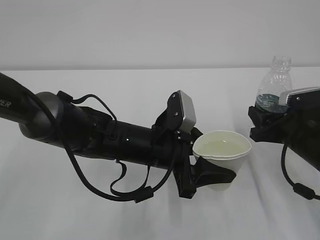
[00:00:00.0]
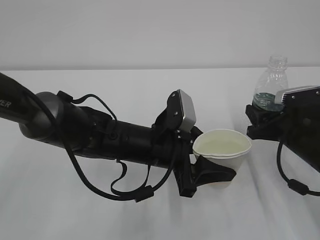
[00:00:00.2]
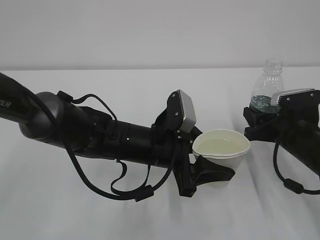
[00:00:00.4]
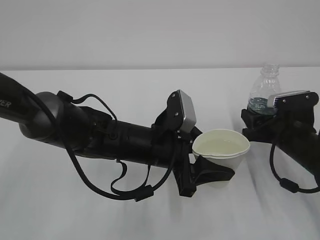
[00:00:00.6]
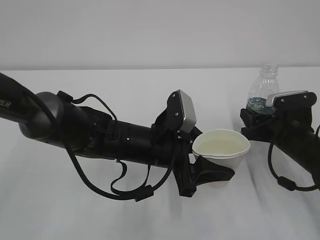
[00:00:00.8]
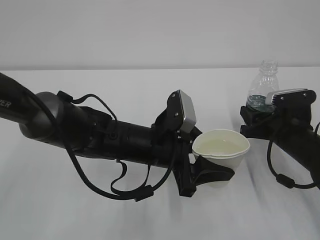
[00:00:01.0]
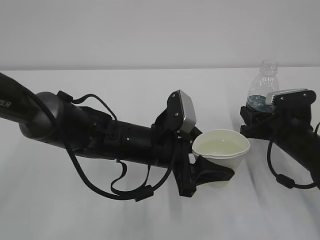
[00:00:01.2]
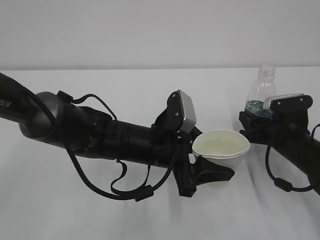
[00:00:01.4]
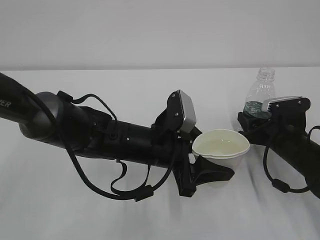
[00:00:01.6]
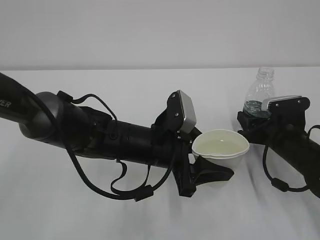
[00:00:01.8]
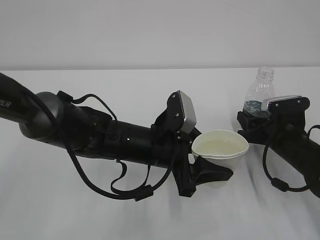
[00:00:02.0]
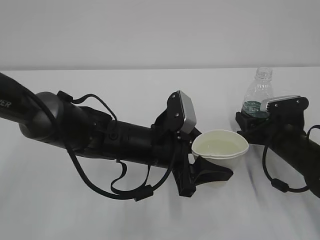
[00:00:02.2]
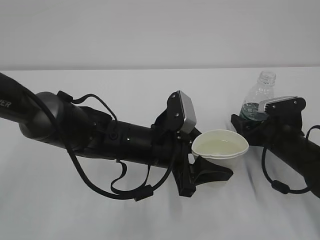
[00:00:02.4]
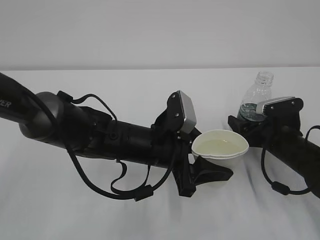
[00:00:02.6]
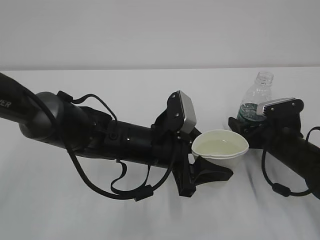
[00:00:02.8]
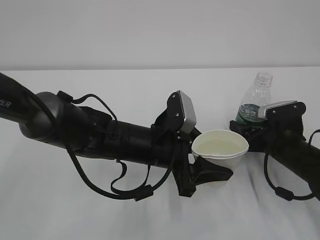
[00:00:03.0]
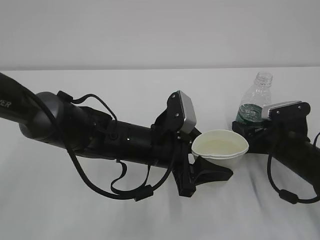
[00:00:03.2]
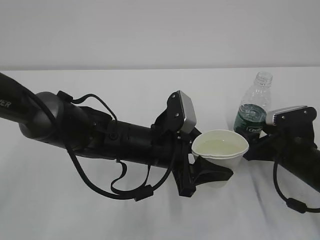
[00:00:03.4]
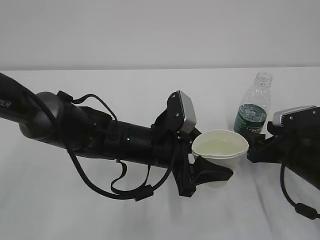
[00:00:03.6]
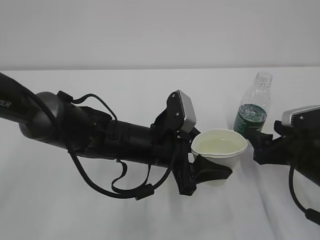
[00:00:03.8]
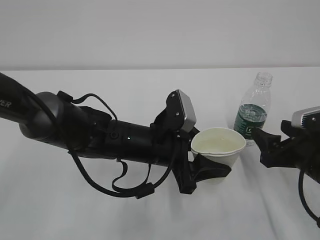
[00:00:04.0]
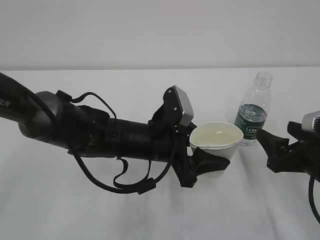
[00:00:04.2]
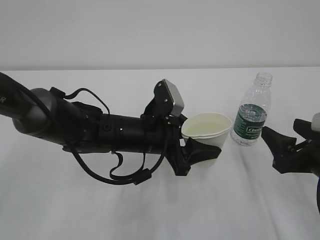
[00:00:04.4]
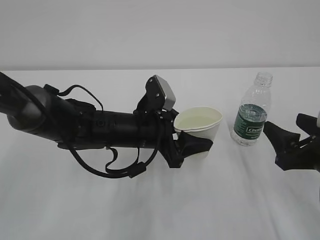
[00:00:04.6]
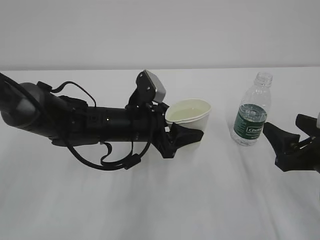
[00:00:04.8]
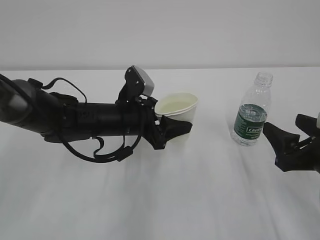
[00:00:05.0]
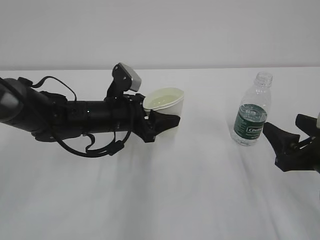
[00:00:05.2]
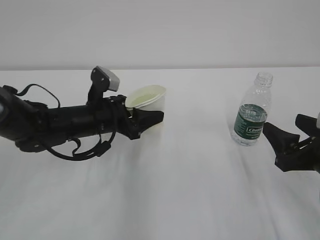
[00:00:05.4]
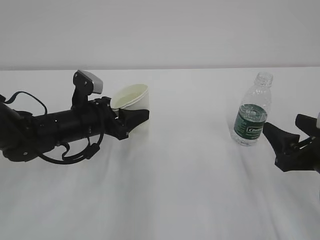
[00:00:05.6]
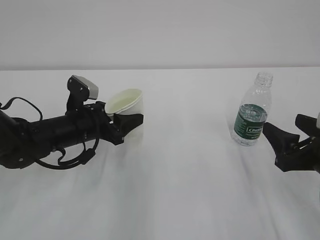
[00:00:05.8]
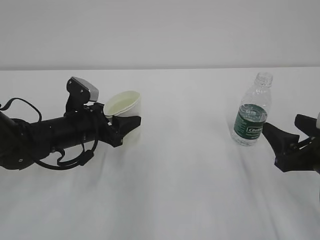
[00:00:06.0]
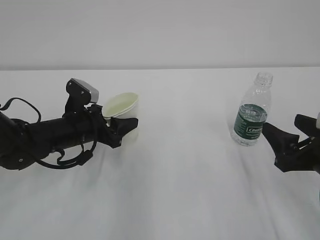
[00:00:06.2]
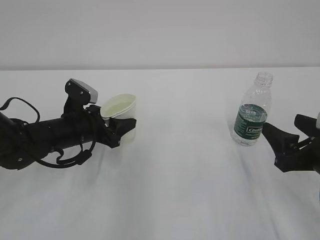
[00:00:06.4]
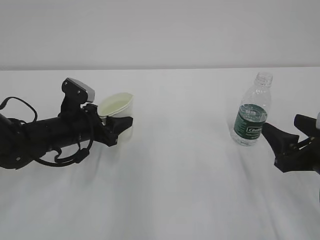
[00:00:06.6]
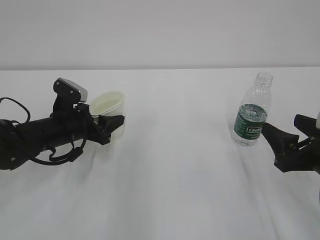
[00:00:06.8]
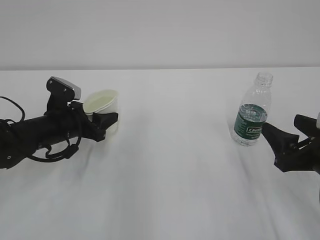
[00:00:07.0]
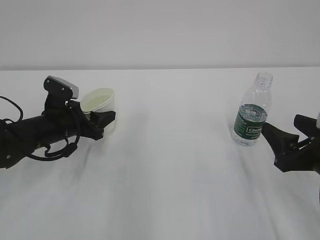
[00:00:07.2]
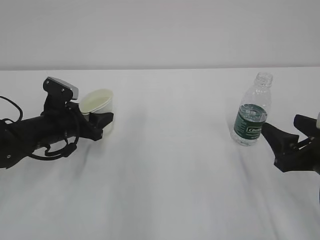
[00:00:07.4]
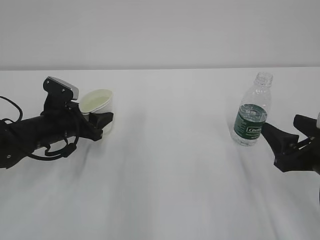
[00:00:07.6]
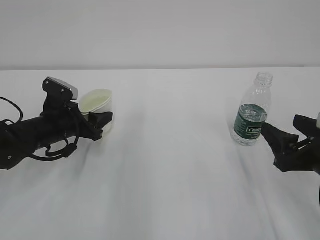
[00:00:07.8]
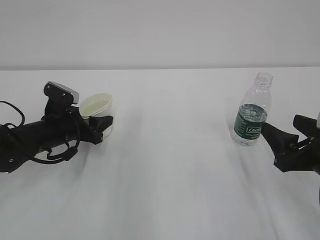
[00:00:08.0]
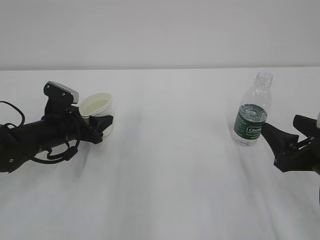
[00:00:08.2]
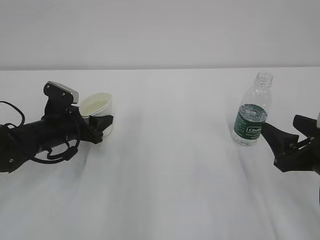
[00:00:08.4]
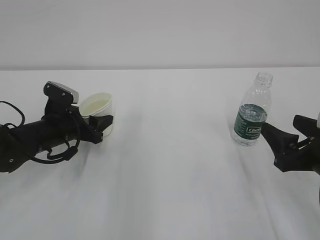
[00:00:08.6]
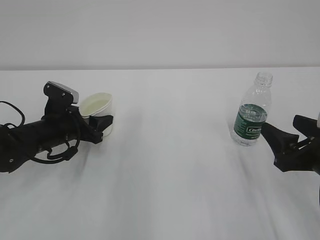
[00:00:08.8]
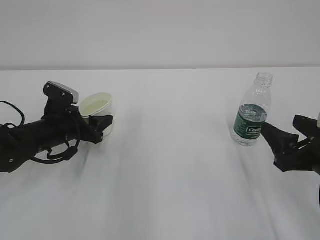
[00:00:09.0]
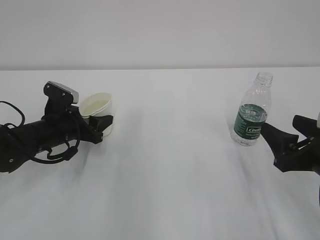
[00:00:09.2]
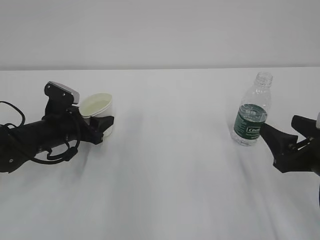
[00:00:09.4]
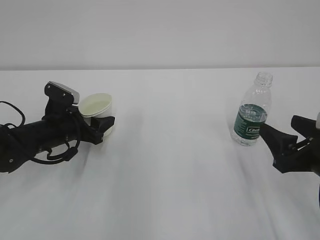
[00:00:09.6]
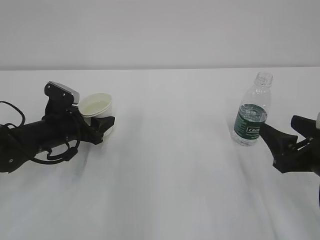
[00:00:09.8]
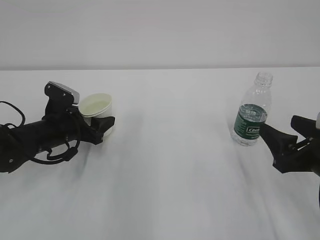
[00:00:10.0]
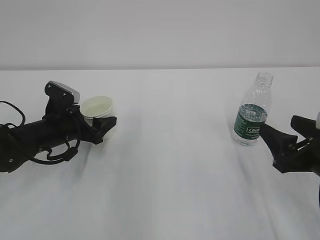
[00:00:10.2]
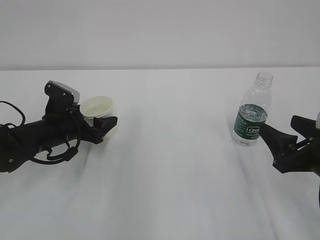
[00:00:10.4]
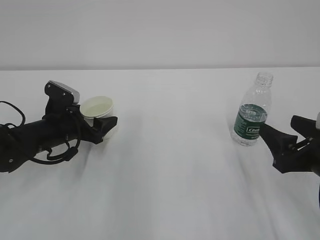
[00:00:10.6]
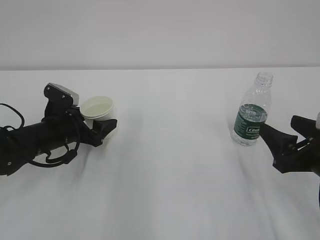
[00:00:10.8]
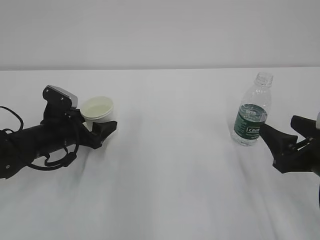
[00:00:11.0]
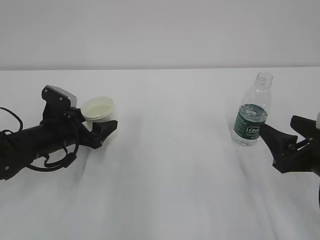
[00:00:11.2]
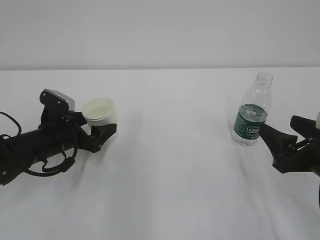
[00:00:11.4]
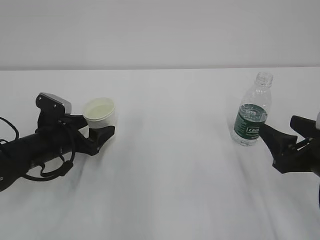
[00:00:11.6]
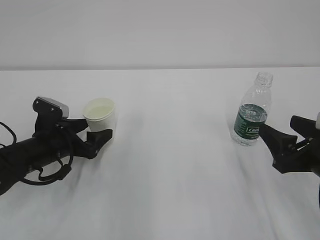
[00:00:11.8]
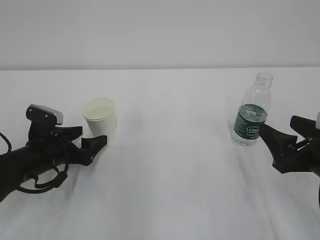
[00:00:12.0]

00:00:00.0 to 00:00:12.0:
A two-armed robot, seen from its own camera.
00:00:00.0 to 00:00:01.6: The right gripper shifts by about 5 cm.
00:00:01.6 to 00:00:03.0: The right gripper opens up.
00:00:03.0 to 00:00:04.4: The right gripper heads backward and upward, covering roughly 15 cm.
00:00:04.4 to 00:00:06.0: The left gripper goes some 15 cm to the left.
00:00:06.0 to 00:00:07.6: The left gripper ends up approximately 5 cm from where it was.
00:00:07.6 to 00:00:09.0: Both grippers stay about where they are.
00:00:09.0 to 00:00:10.4: The left gripper opens up.
00:00:10.4 to 00:00:12.0: The left gripper shifts roughly 5 cm backward.

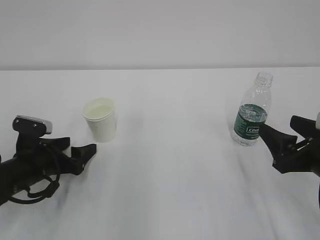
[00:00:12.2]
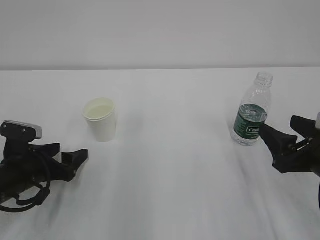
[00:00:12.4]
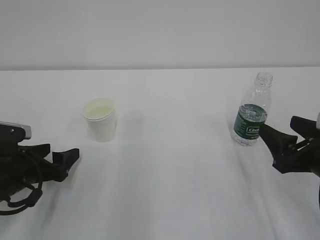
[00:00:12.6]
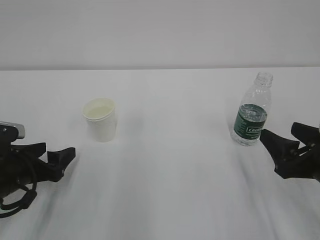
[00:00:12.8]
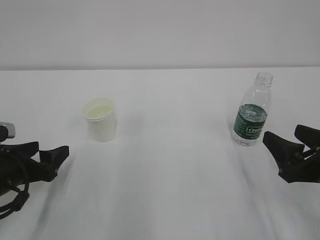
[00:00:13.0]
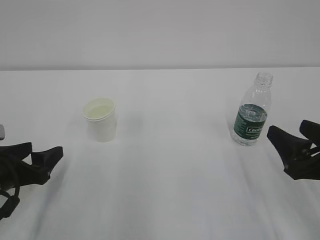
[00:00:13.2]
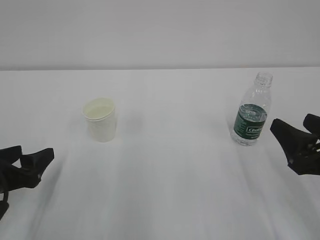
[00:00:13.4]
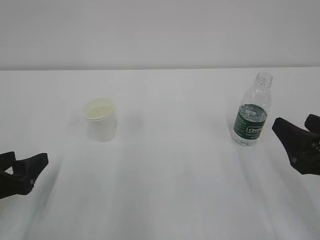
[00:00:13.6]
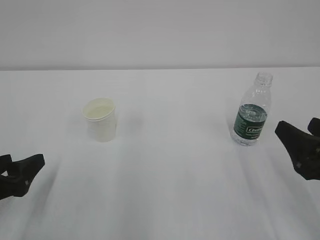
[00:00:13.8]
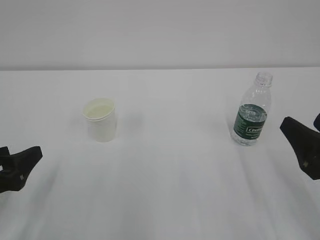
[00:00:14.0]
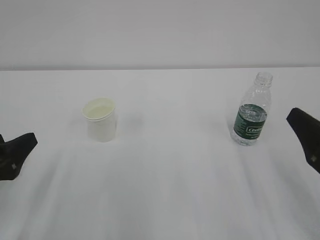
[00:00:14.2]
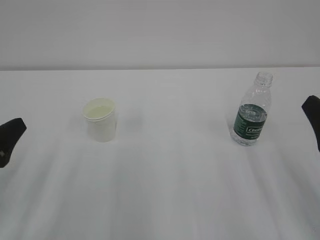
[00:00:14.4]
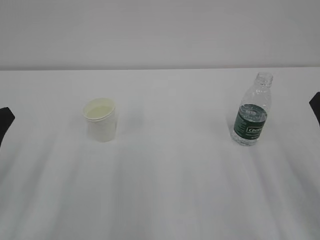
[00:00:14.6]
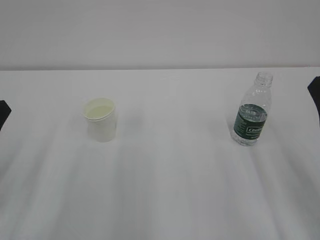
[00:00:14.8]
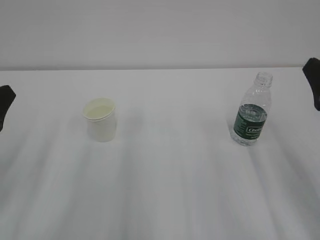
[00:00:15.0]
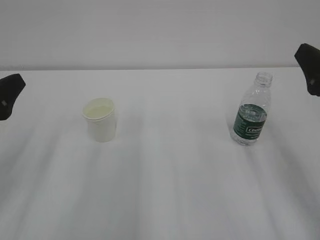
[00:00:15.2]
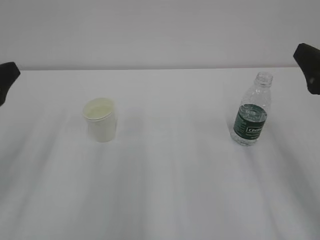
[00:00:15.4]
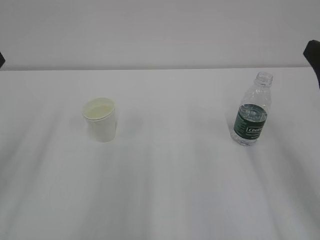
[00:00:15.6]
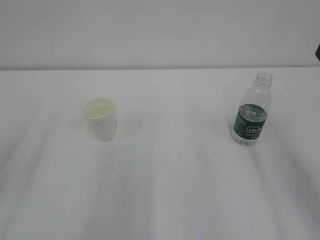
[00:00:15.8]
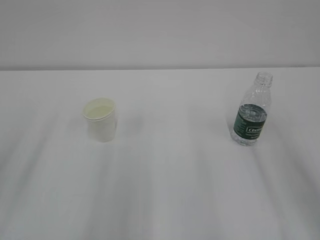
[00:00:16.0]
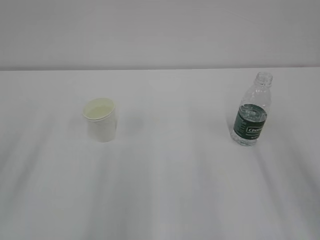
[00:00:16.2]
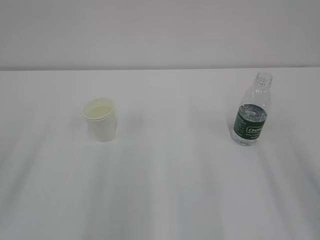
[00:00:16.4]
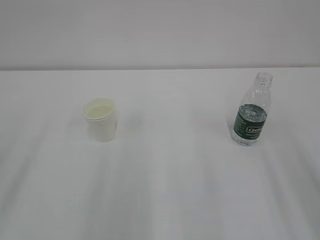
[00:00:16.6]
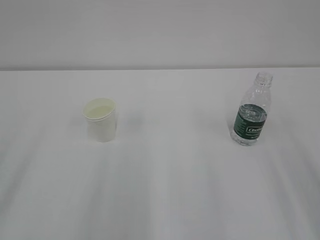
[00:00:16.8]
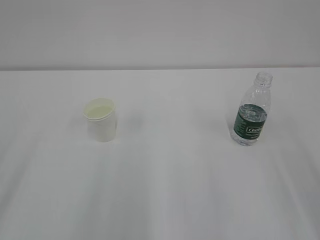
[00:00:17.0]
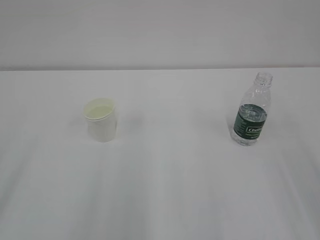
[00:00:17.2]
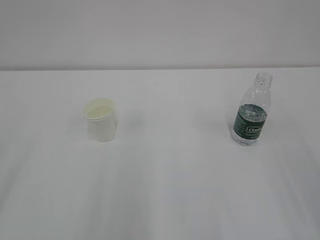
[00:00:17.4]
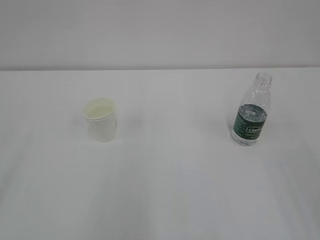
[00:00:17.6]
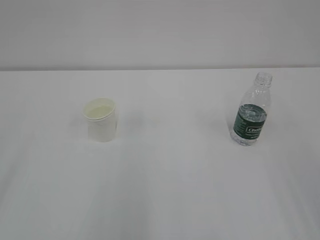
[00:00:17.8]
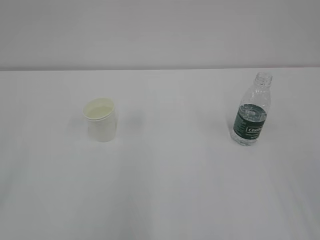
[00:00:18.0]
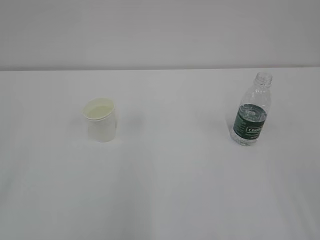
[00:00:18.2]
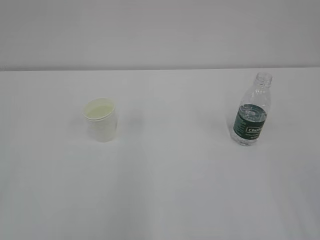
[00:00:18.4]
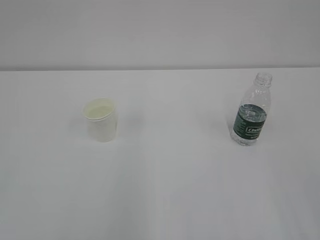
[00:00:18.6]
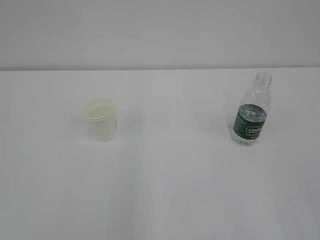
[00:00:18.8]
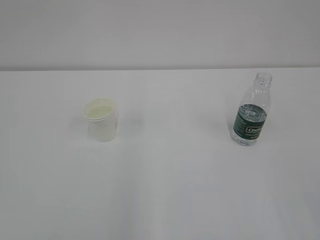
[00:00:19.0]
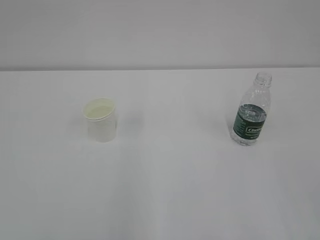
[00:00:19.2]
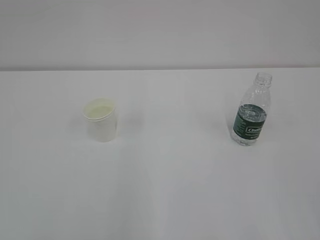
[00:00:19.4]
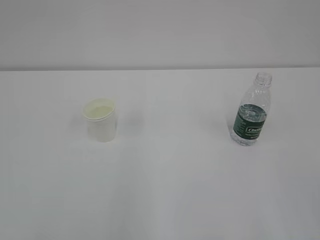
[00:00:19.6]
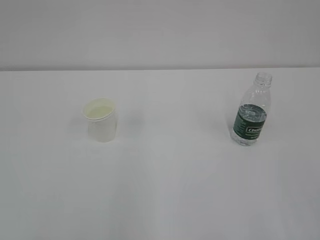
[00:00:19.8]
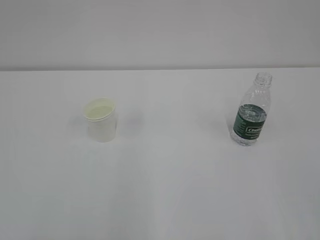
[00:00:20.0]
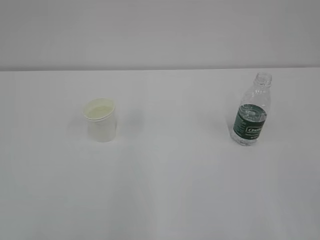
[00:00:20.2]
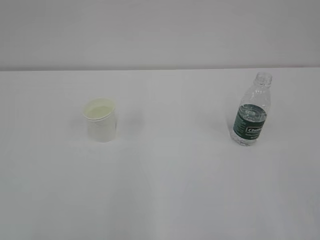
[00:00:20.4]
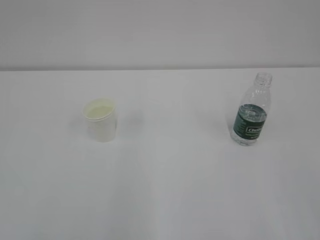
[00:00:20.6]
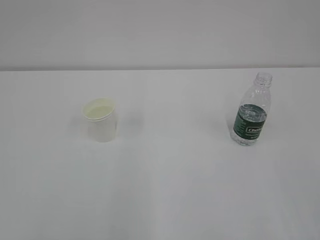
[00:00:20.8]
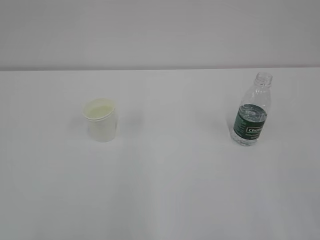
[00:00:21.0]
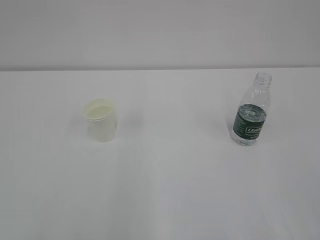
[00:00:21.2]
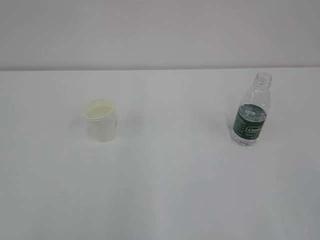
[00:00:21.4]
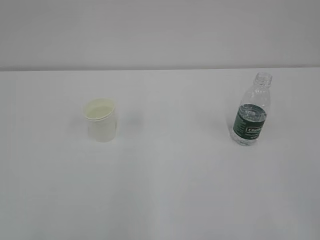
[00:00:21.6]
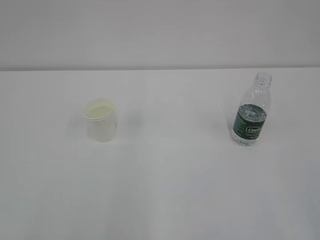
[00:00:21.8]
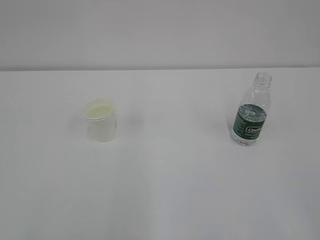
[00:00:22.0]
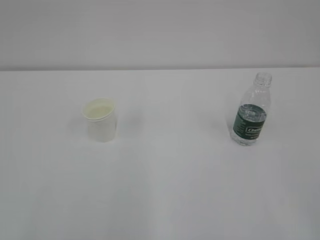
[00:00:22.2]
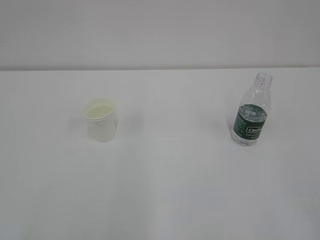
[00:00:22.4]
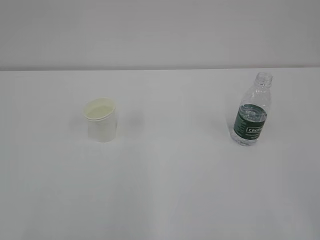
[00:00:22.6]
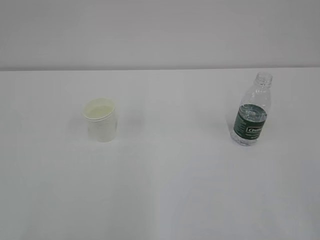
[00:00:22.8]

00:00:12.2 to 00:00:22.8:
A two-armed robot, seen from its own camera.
00:00:12.2 to 00:00:13.8: The left gripper is displaced backward and upward by approximately 10 cm.
00:00:13.8 to 00:00:15.2: Both grippers travel together upward, approximately 10 cm.
00:00:15.2 to 00:00:16.8: Both grippers move backward and upward, about 10 cm.
00:00:19.8 to 00:00:21.2: Neither gripper changes place.
